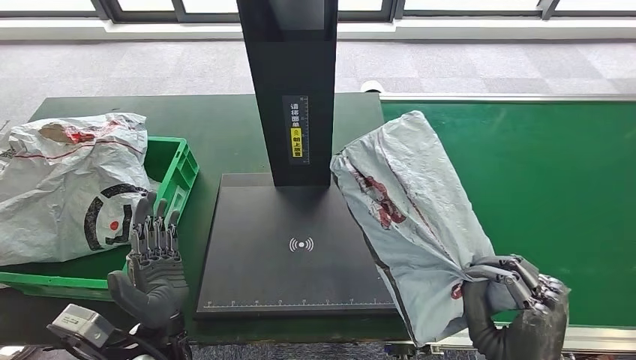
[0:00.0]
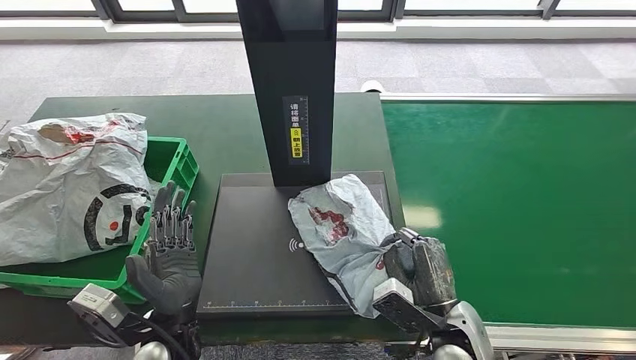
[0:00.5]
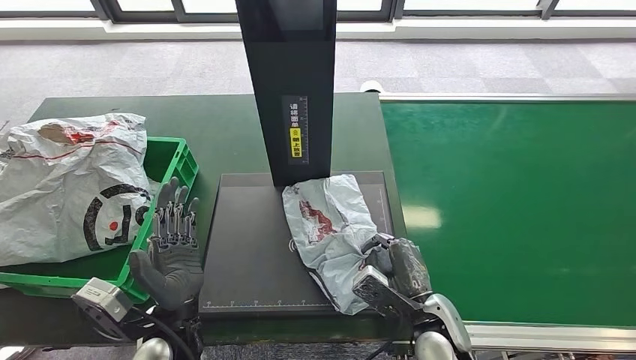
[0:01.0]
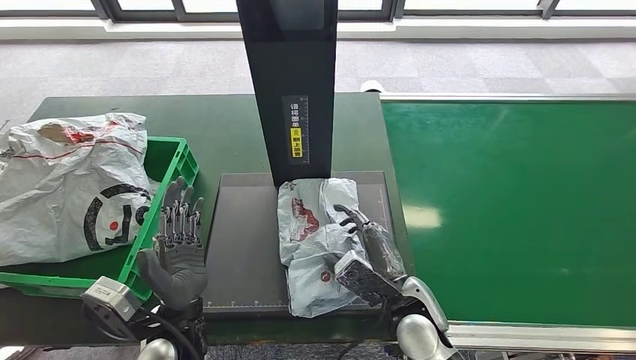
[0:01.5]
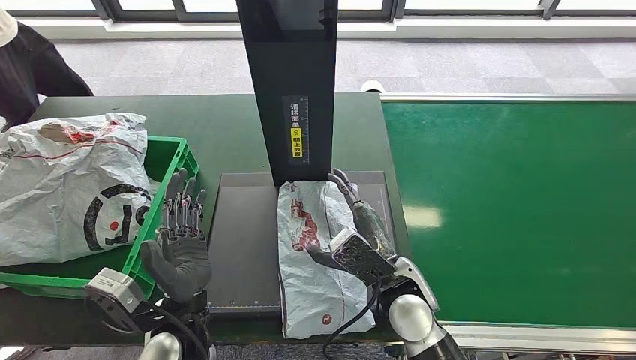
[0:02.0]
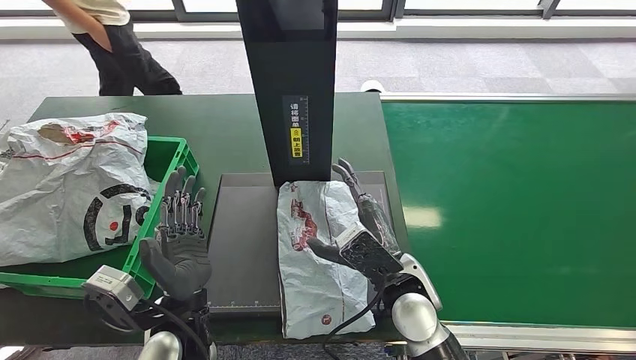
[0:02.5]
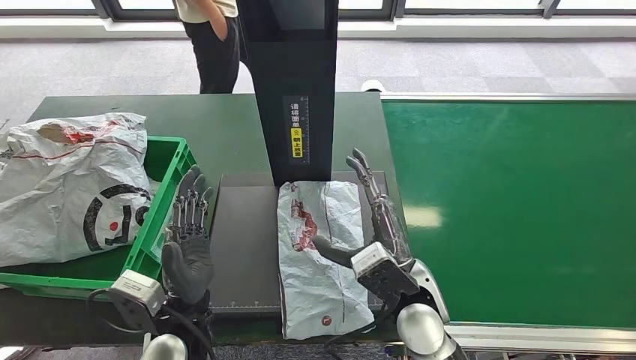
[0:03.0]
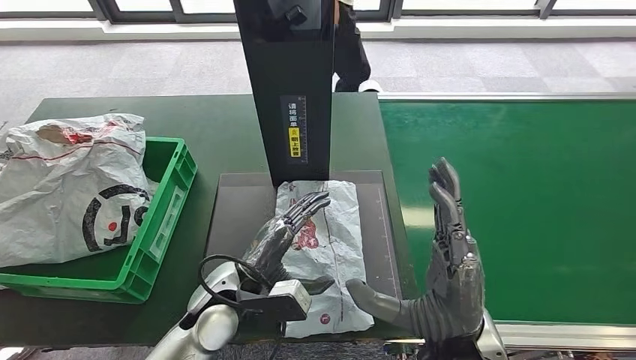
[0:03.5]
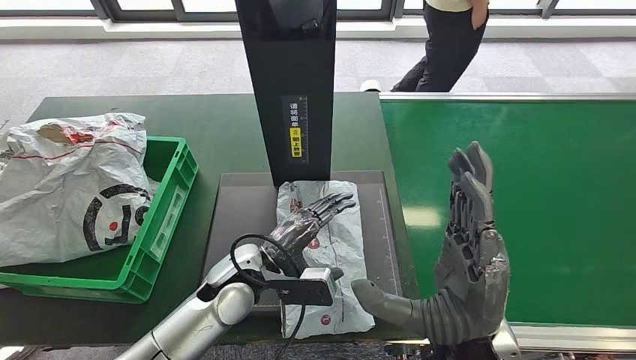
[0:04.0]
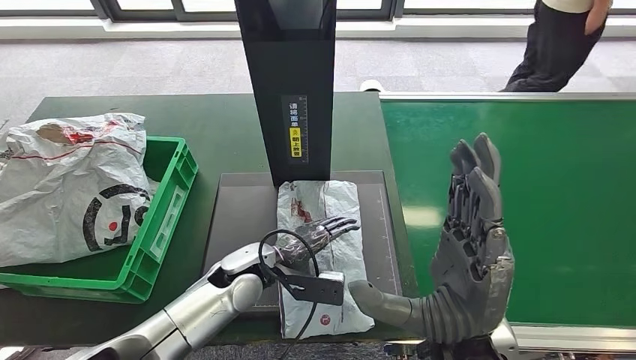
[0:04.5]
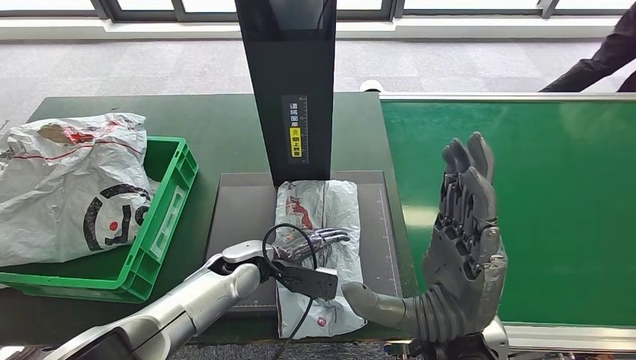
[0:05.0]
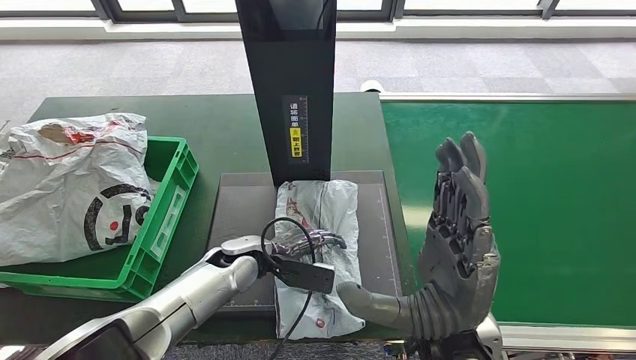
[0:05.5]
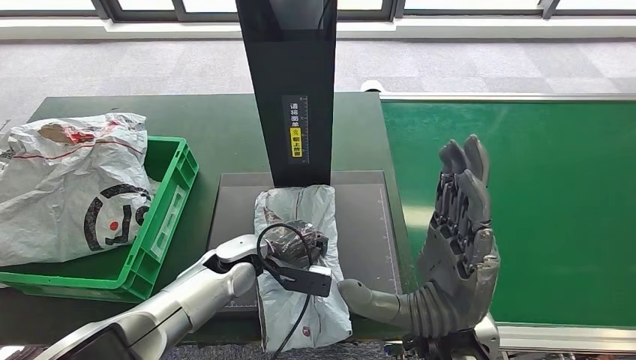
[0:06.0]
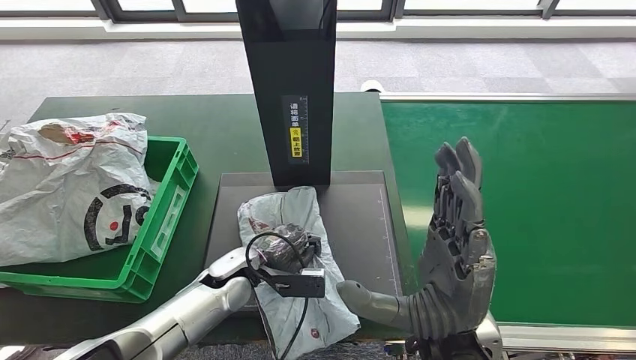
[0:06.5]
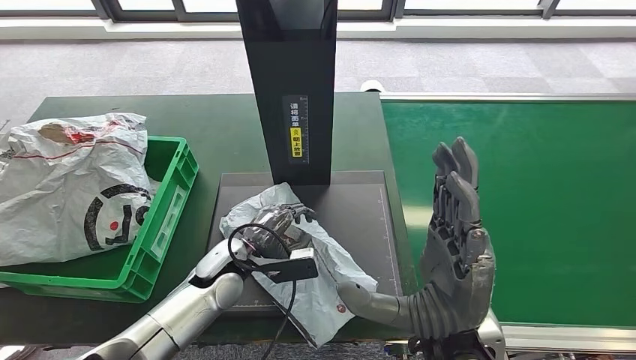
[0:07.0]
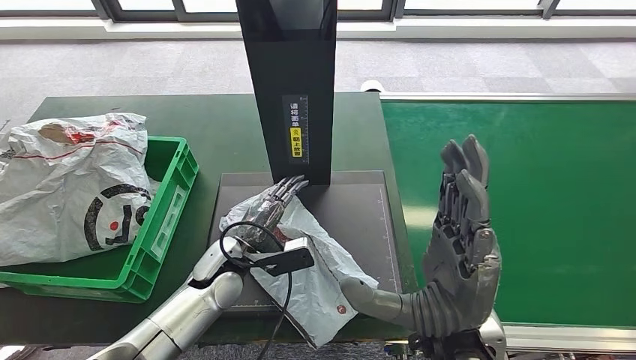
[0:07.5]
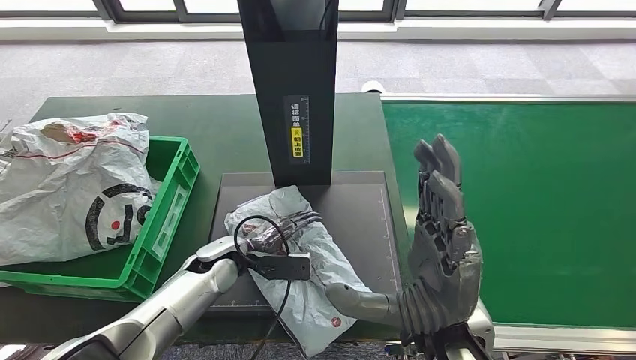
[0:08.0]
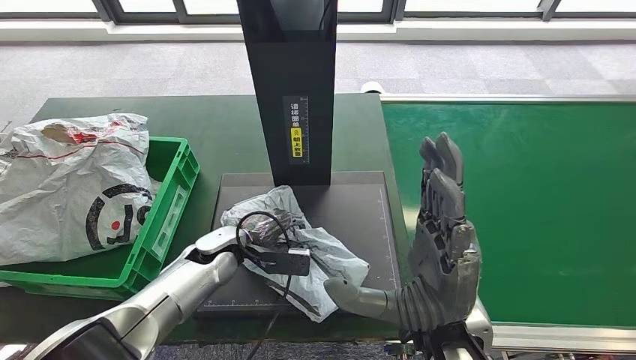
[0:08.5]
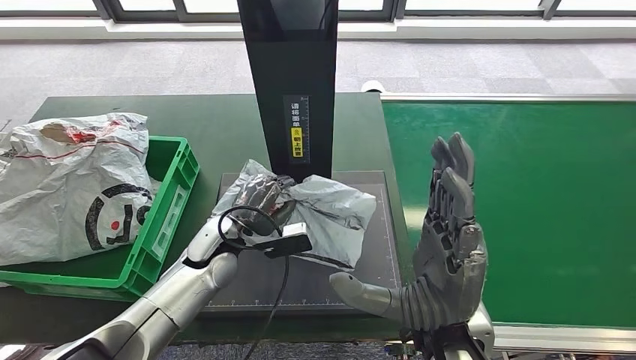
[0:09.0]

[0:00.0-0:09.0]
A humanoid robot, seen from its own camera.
Step, 0:00.5 to 0:05.0: Place the parcel onto the inbound machine.
0:04.5 to 0:07.0: The hands stay close to where they were, moving slightly.

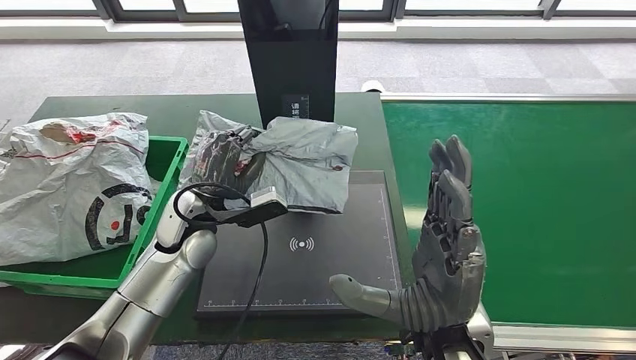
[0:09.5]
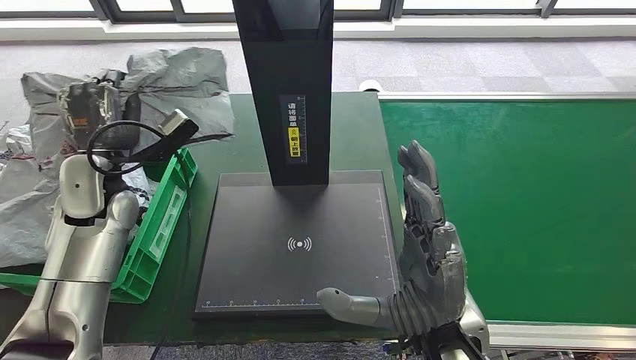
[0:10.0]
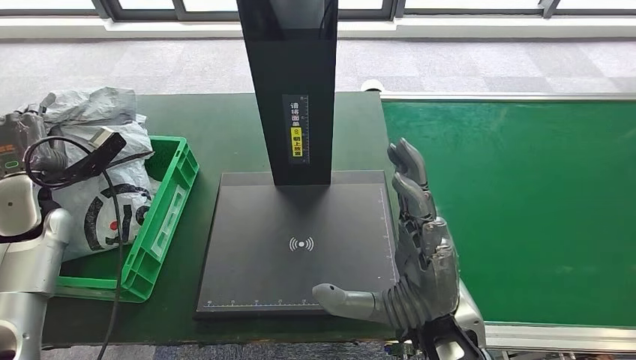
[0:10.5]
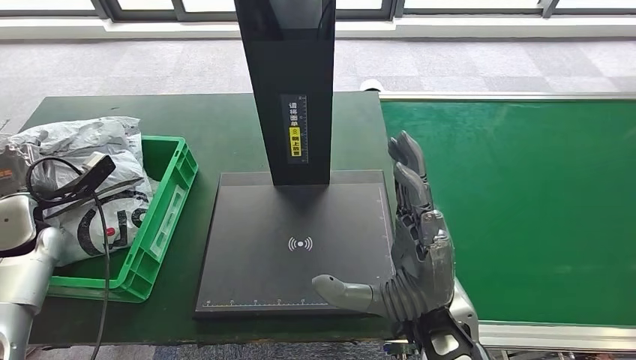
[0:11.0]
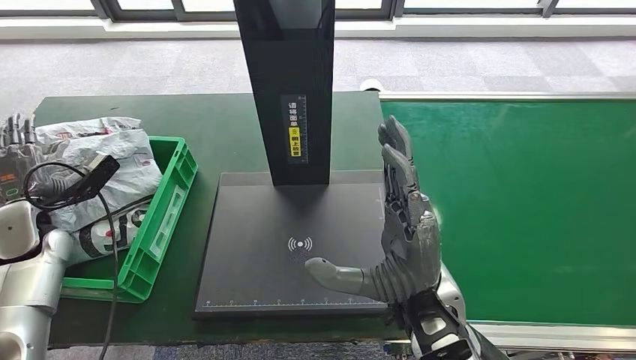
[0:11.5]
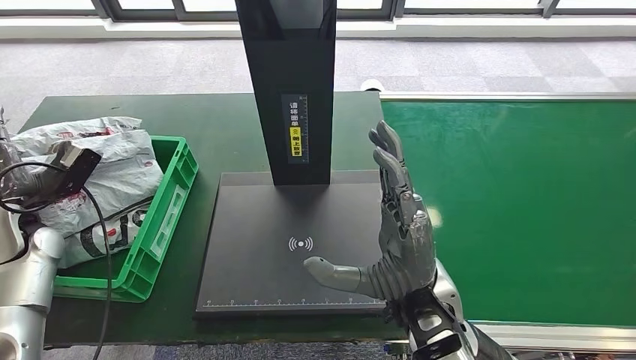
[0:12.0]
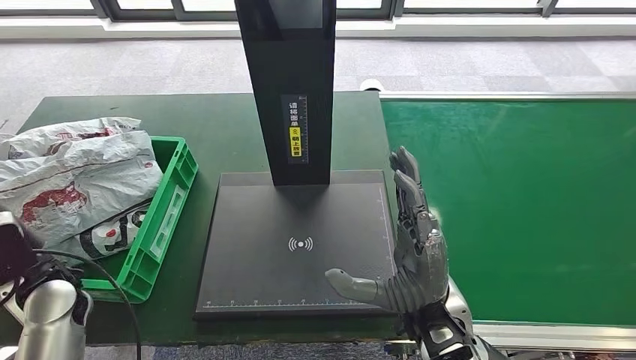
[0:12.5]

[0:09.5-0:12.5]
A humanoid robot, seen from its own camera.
Step, 0:09.5 to 0:12.5: Place the parcel into the delivery box.
0:11.0 to 0:12.5: The left hand goes roughly 15 cm backward and to the right.
